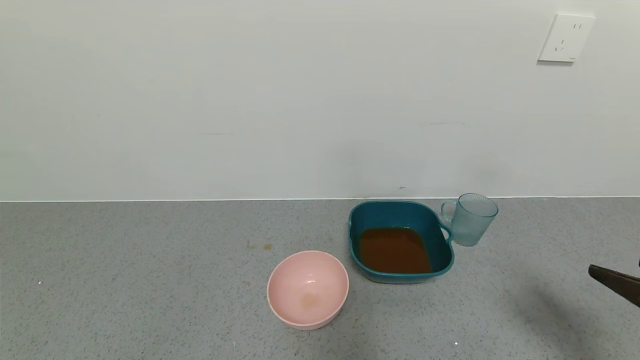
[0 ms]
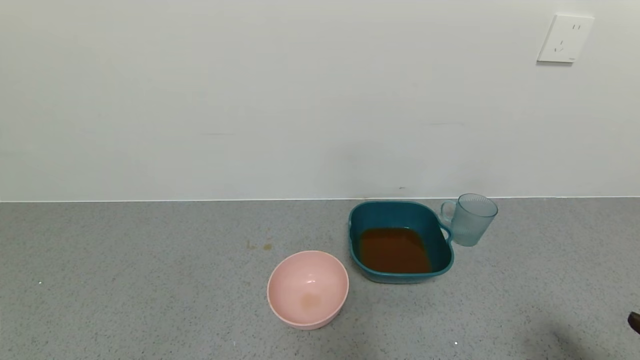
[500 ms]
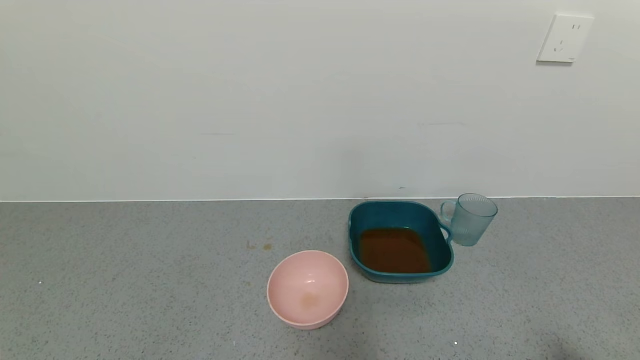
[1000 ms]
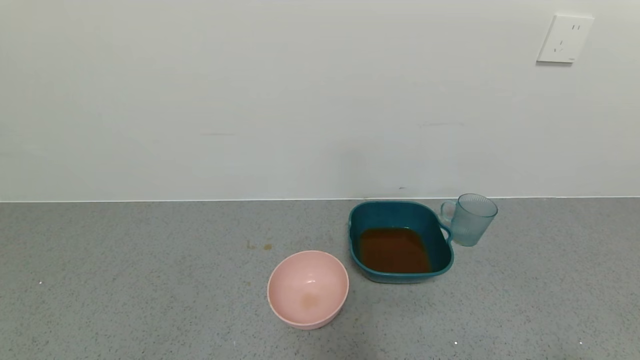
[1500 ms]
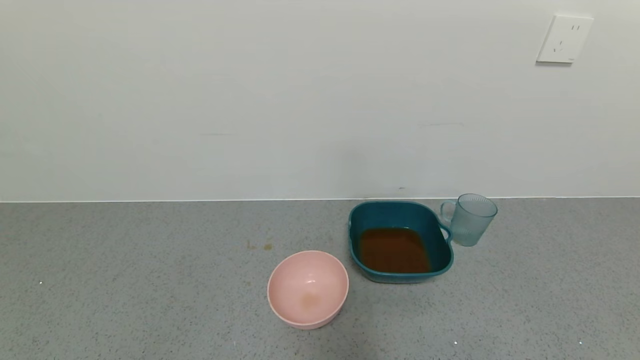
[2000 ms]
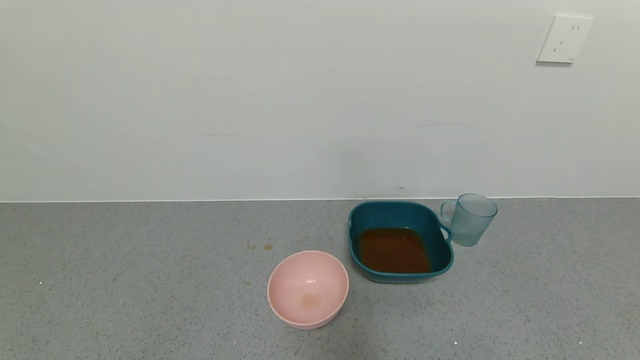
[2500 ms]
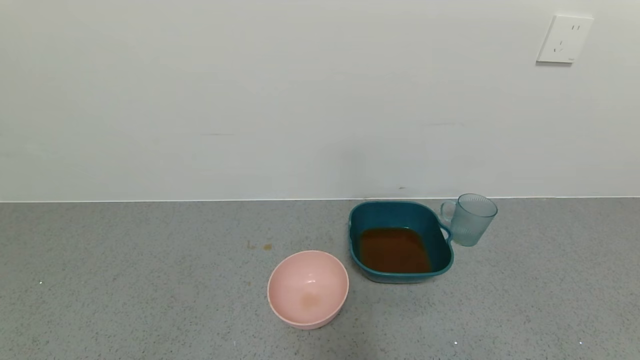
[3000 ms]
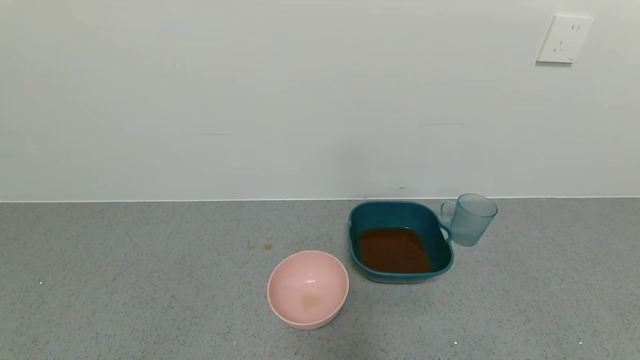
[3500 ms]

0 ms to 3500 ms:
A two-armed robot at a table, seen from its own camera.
Task of the whole recording: use a gripper to pick up the cup and pour the liquid into a bowl or tray.
0 ms to 2000 ms: The right gripper shifts about 20 cm backward and downward.
